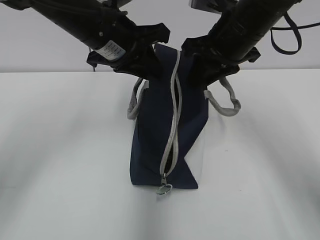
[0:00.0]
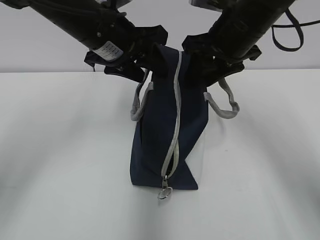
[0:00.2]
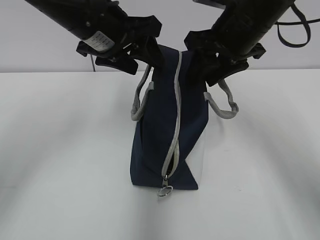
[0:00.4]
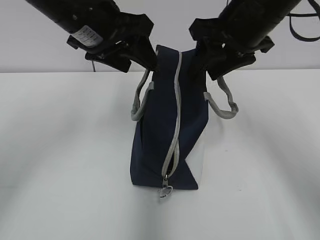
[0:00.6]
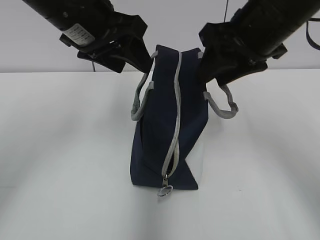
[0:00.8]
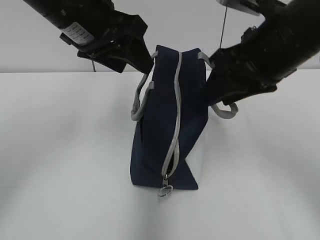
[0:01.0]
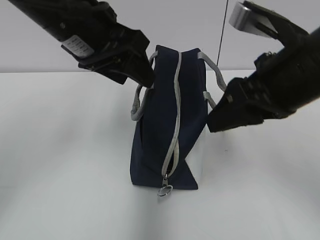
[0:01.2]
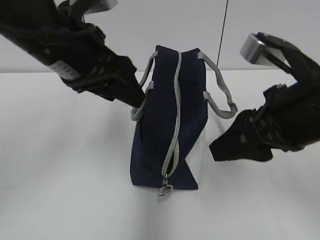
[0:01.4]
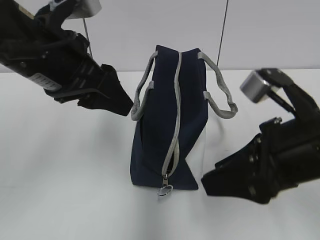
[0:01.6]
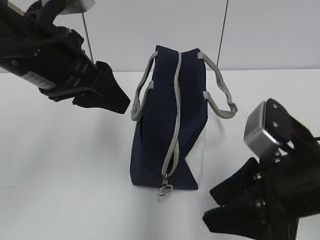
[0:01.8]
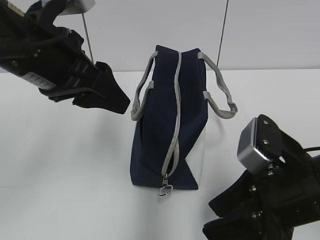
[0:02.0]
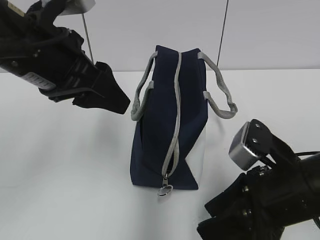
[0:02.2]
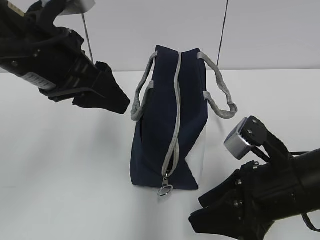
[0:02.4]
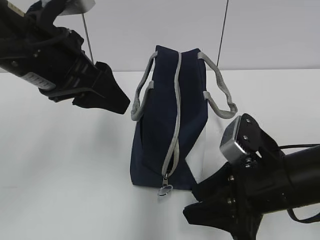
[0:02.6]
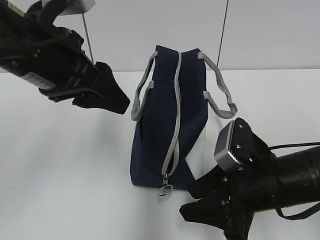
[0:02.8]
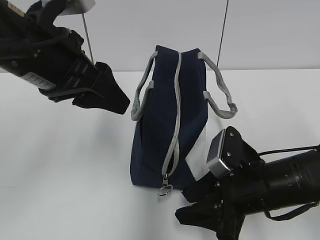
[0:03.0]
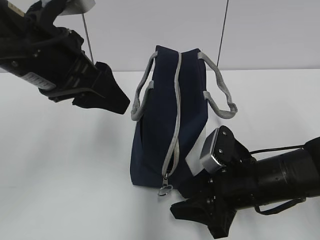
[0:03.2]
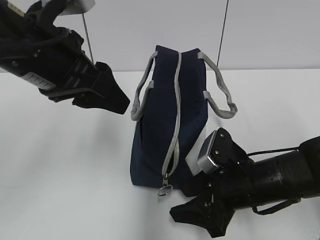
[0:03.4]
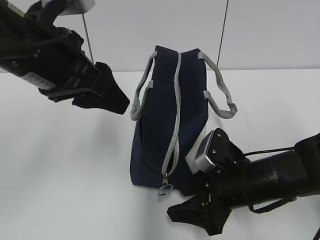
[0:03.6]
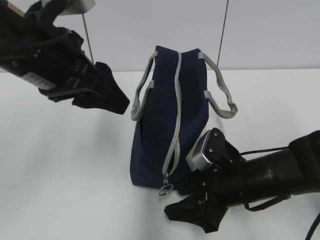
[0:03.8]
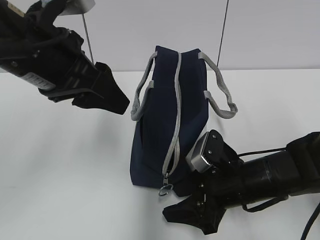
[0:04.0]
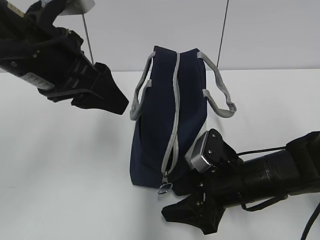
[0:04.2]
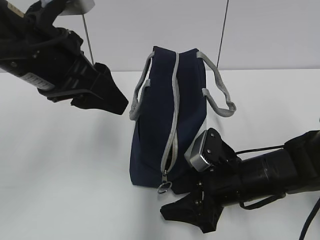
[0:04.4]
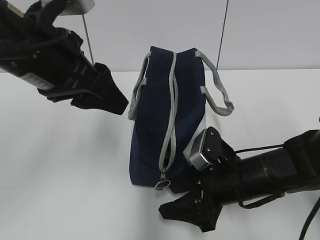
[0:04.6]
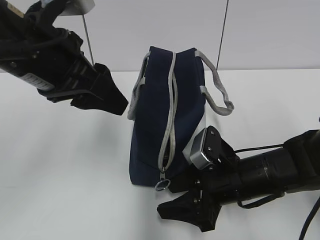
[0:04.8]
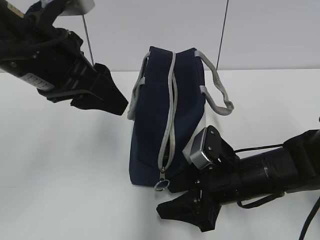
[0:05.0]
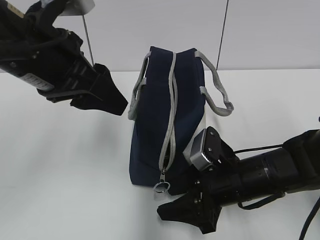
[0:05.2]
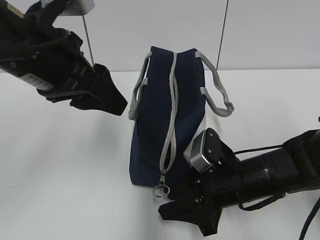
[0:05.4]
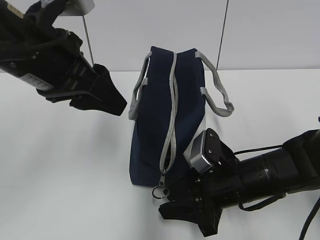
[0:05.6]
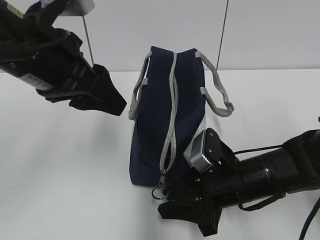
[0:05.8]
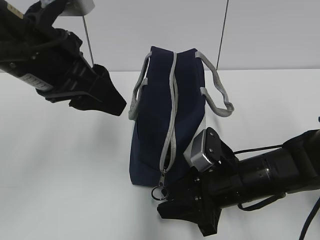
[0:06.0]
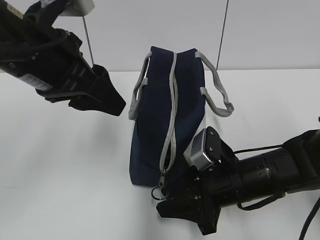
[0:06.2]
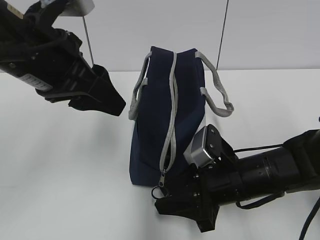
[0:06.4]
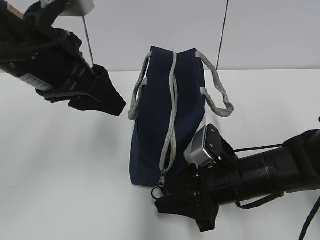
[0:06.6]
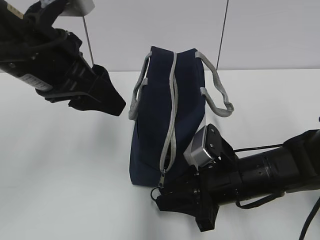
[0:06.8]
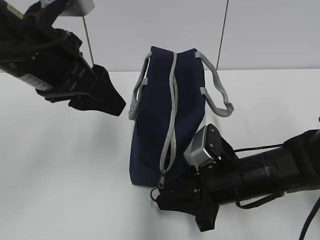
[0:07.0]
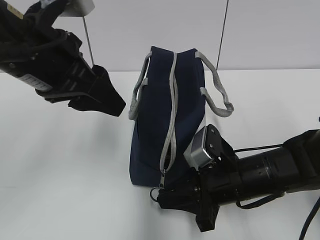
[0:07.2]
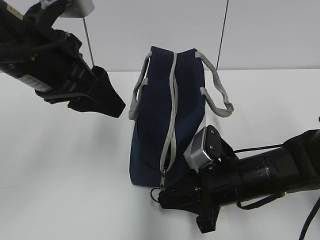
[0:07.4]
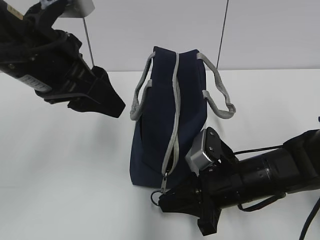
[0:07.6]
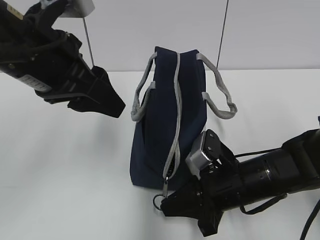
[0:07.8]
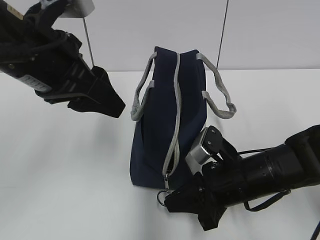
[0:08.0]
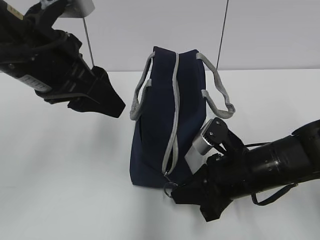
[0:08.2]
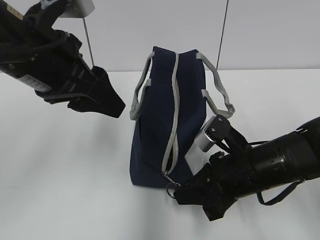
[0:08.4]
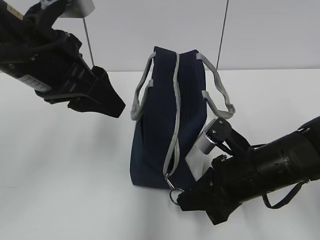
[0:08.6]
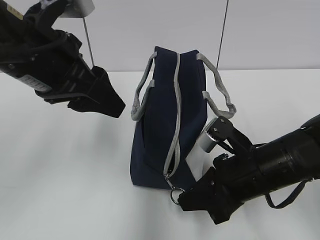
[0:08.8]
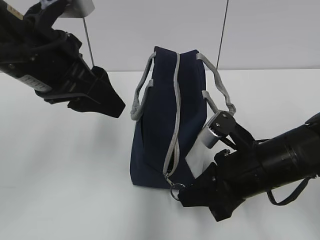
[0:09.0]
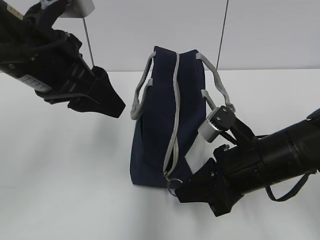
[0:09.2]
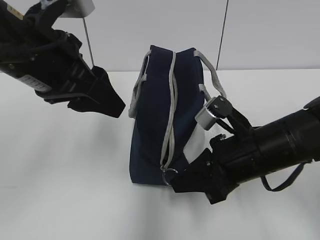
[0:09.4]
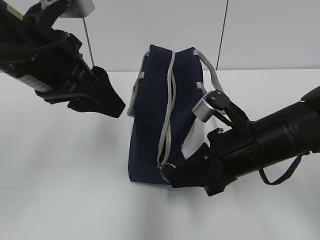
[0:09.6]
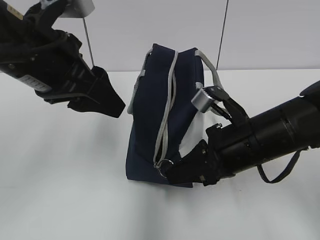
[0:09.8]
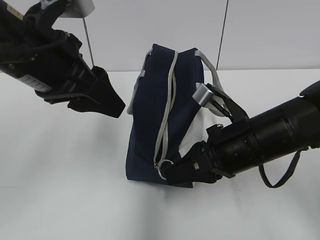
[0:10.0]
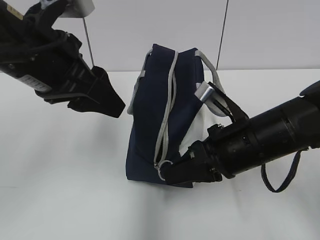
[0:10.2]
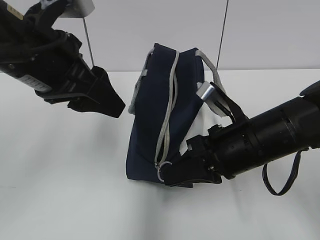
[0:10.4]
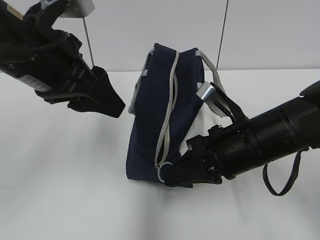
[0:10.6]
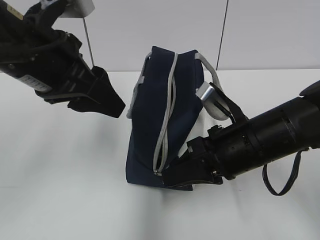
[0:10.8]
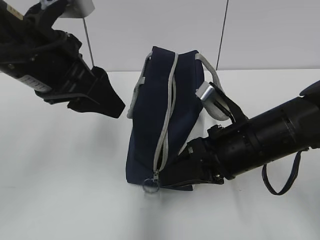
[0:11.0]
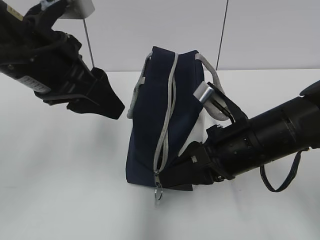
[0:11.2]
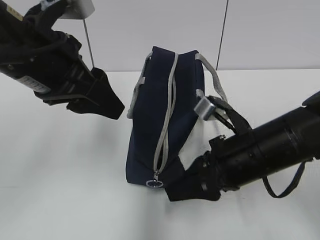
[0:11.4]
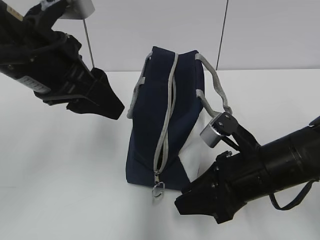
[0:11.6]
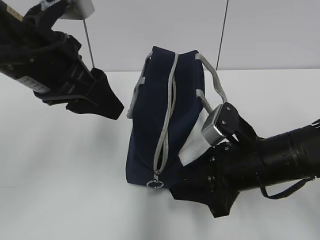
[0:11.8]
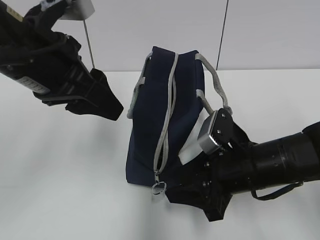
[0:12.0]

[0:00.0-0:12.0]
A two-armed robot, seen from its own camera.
0:00.0 to 0:01.6: The right gripper travels backward by roughly 20 cm; the left gripper travels backward by roughly 10 cm, and opens its fingers.
0:01.6 to 0:03.0: The right gripper shifts some 10 cm downward.
0:03.0 to 0:04.4: The right gripper ends up about 5 cm from where it was.
0:04.4 to 0:06.0: The grippers make only small movements.
0:06.0 to 0:07.6: The right gripper closes up.
0:07.6 to 0:09.0: The right gripper moves roughly 5 cm.
0:10.4 to 0:12.0: The right gripper opens.

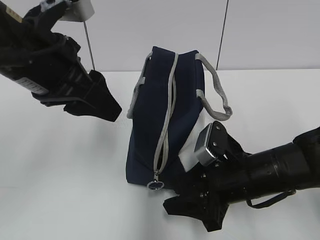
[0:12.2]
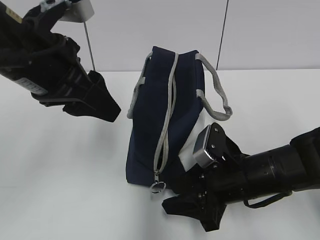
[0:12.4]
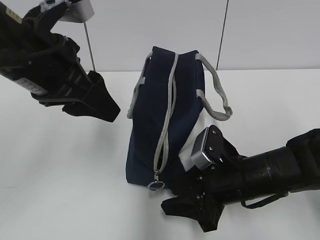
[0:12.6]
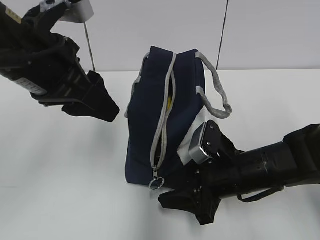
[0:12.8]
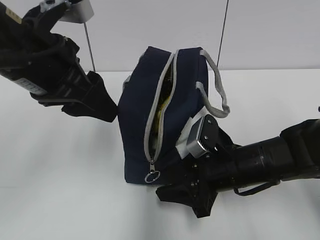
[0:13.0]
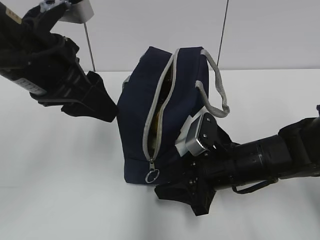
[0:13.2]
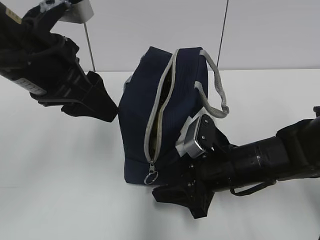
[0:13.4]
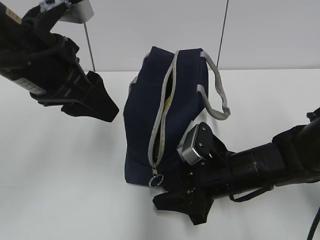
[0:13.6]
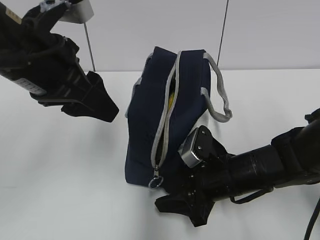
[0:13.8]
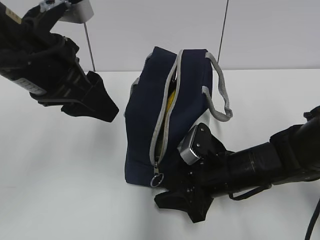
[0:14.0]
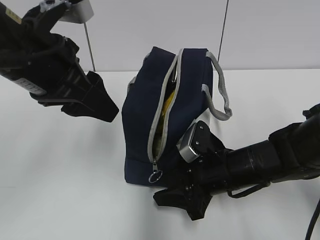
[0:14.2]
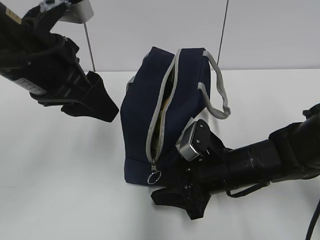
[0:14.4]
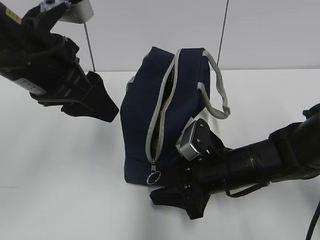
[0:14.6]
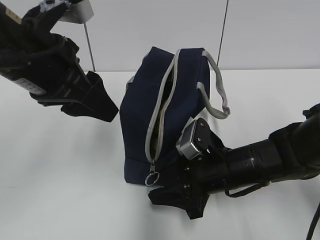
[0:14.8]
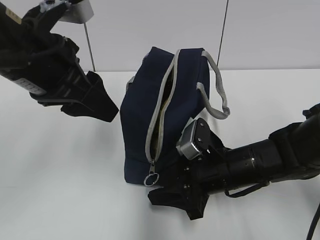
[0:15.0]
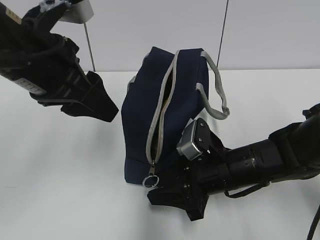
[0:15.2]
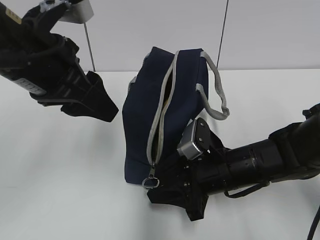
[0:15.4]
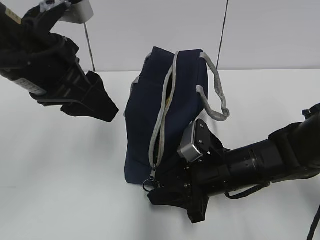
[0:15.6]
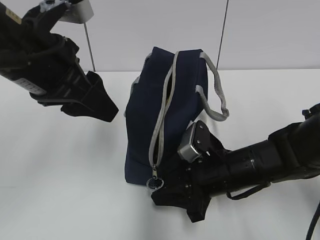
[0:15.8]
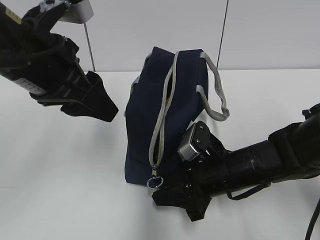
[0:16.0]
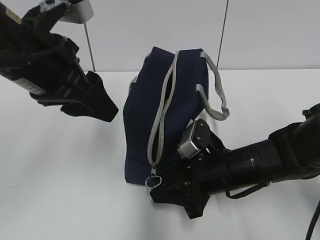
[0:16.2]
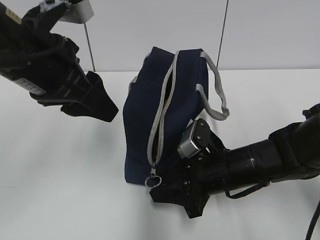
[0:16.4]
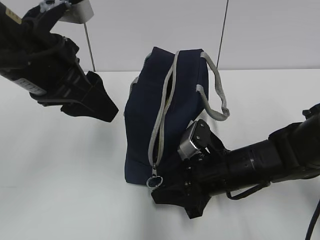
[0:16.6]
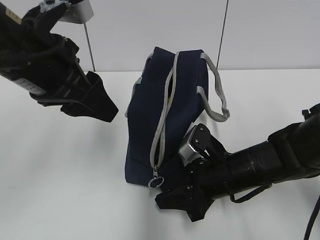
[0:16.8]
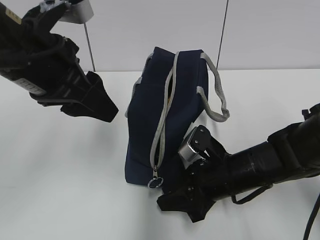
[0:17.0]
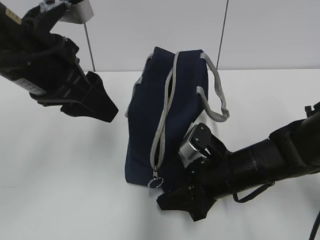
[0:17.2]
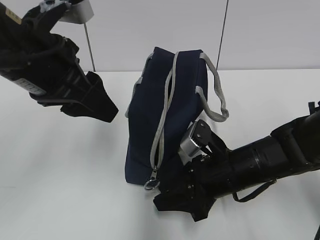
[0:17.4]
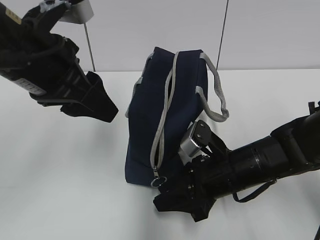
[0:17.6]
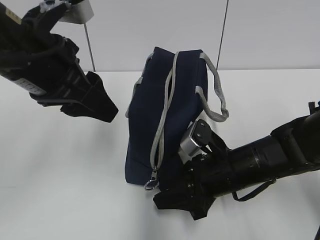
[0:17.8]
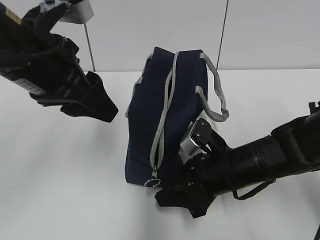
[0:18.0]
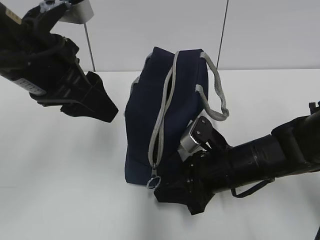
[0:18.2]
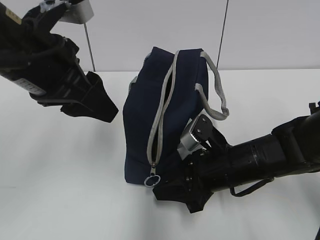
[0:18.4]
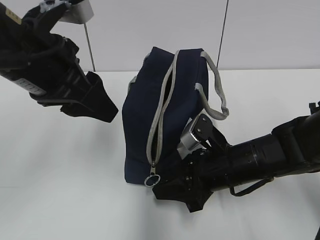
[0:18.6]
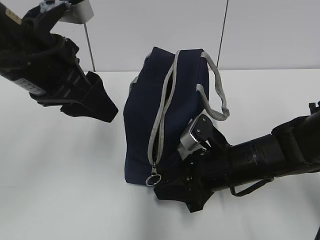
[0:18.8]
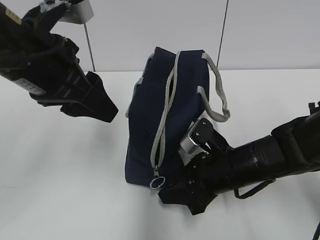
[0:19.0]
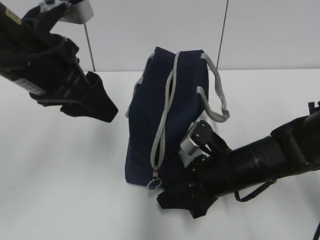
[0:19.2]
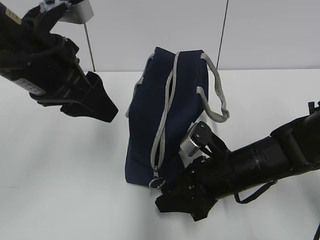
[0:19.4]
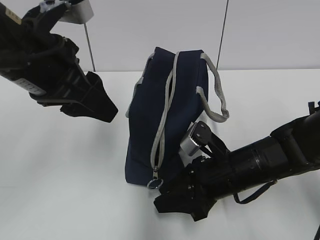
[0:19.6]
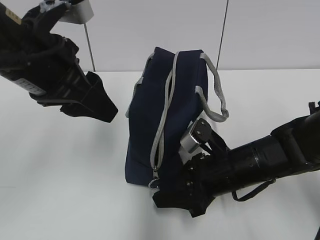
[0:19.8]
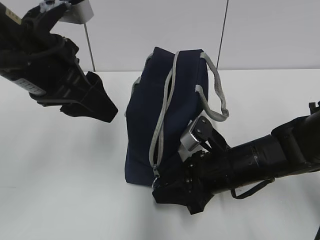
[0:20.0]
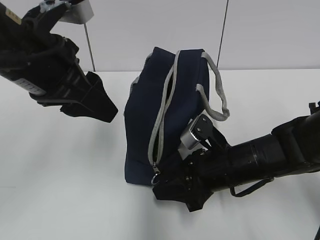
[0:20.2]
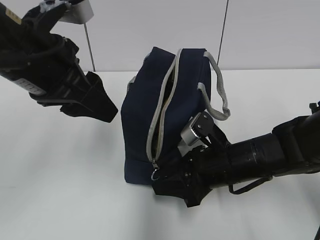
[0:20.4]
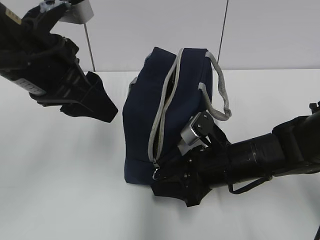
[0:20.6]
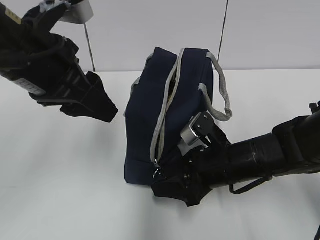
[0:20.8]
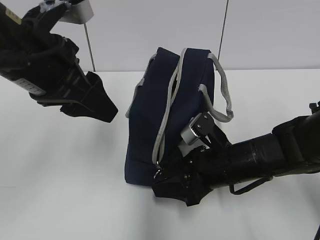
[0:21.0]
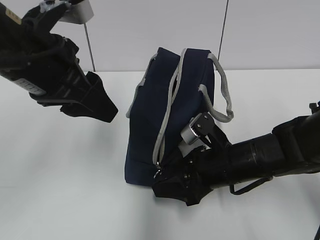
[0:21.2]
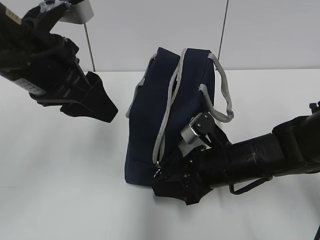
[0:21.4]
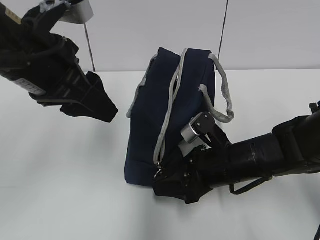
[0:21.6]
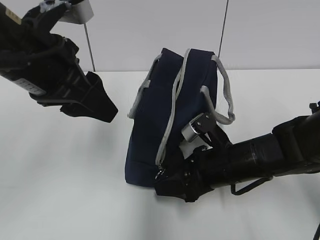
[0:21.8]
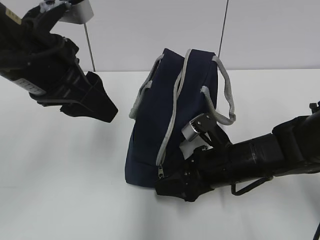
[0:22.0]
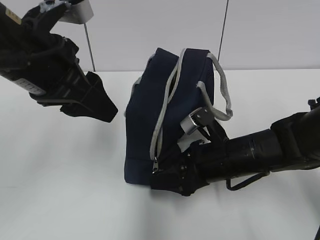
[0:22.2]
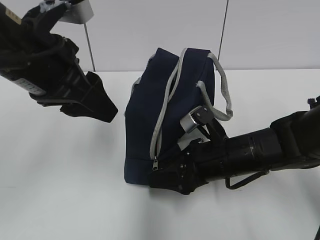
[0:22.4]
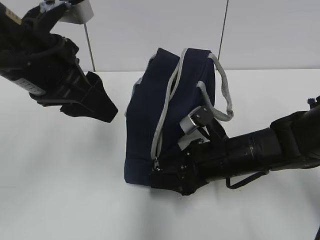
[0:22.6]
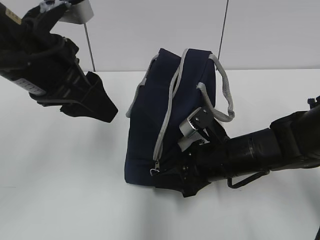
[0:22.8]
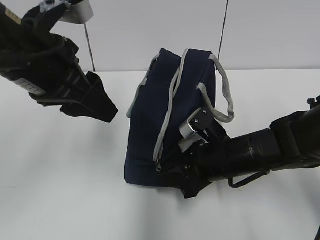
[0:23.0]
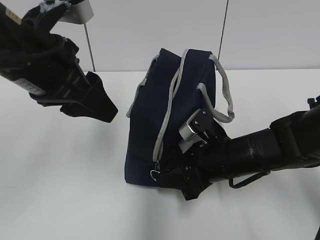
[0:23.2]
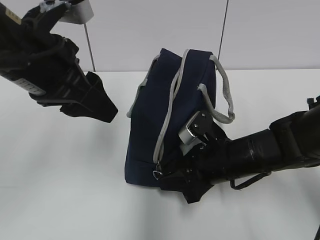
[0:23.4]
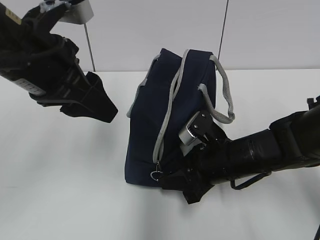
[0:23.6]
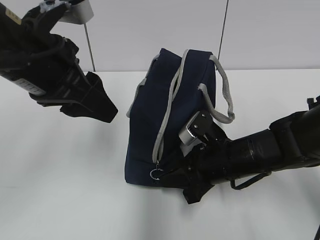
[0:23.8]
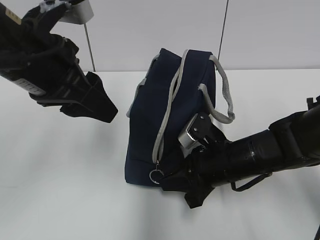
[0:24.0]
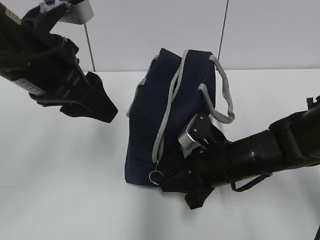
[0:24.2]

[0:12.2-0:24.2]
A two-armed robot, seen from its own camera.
0:12.2 to 0:22.6: The grippers move only a little.
0:22.6 to 0:24.2: The right gripper closes up.
